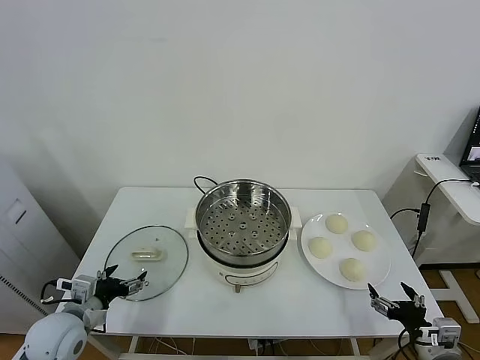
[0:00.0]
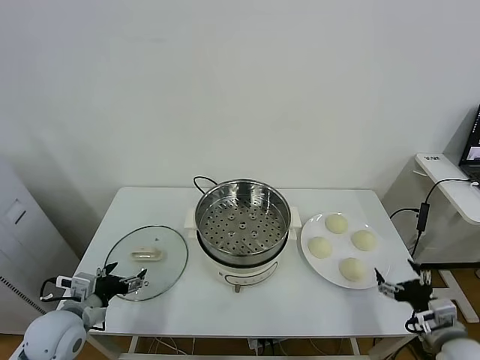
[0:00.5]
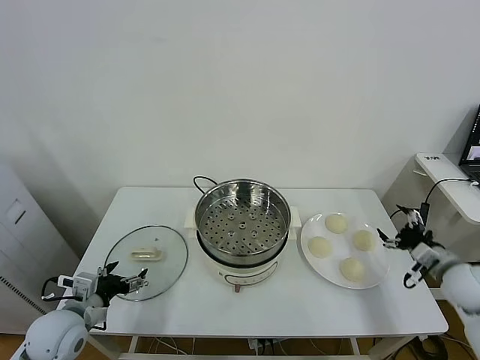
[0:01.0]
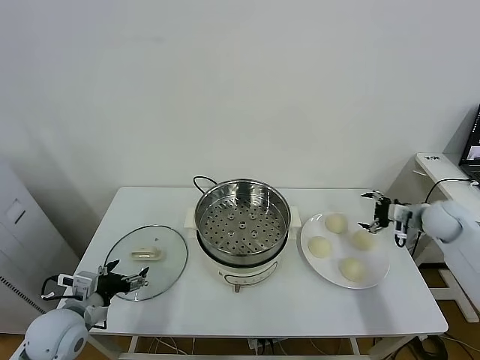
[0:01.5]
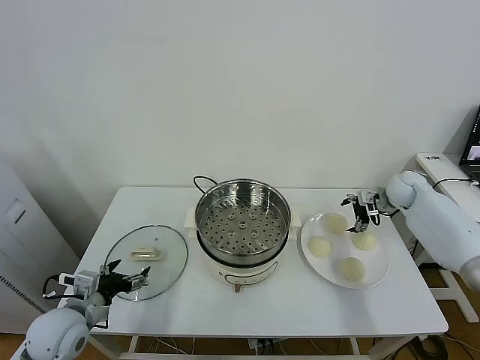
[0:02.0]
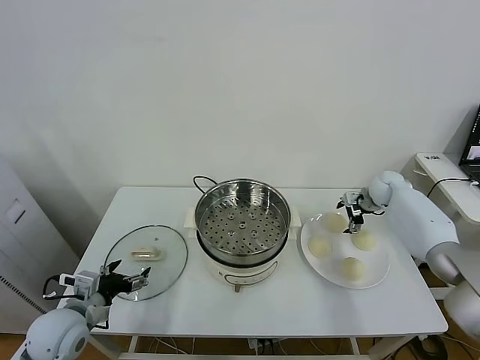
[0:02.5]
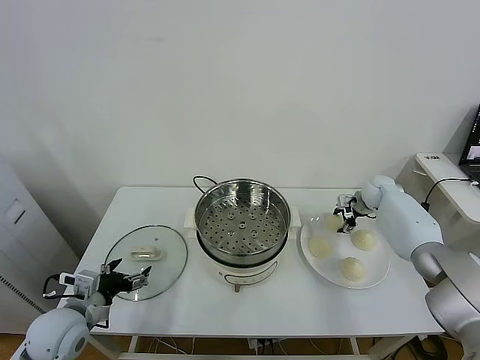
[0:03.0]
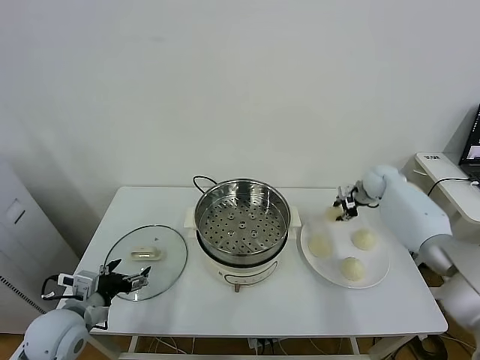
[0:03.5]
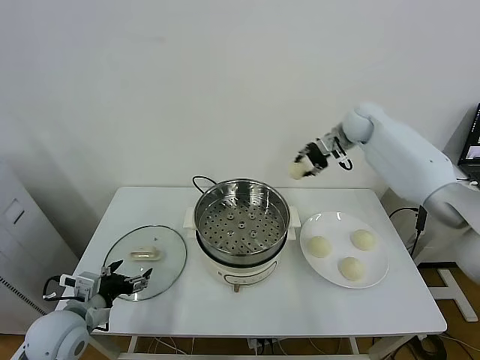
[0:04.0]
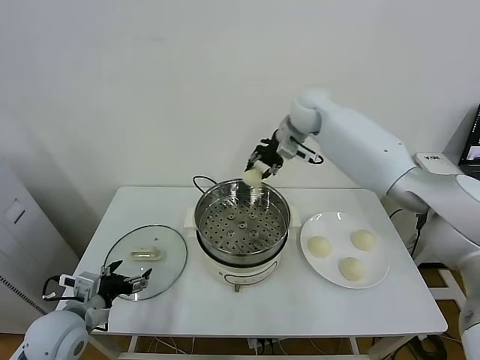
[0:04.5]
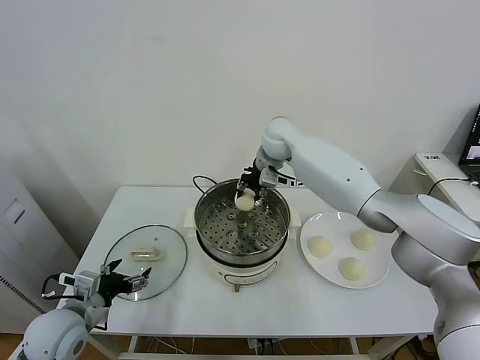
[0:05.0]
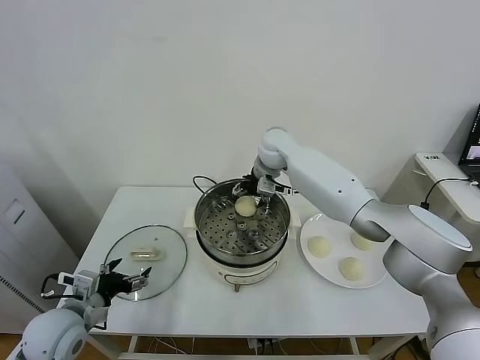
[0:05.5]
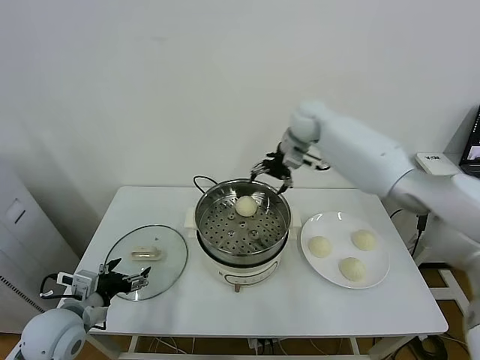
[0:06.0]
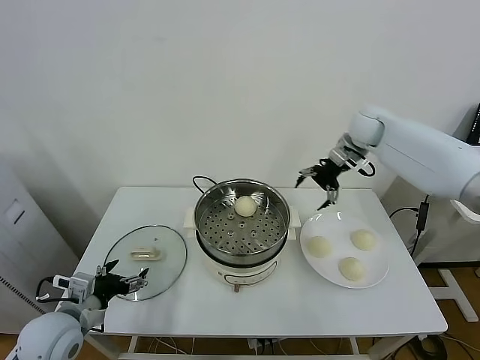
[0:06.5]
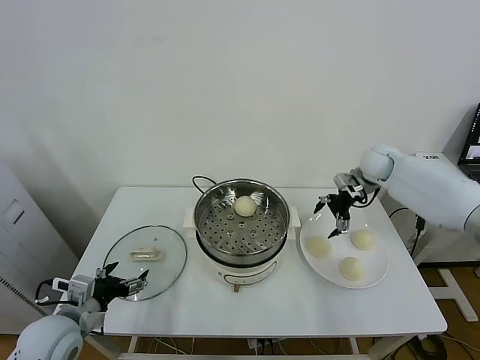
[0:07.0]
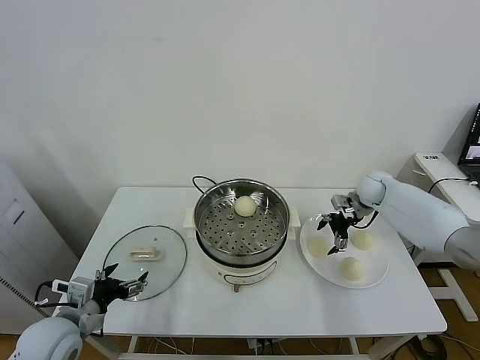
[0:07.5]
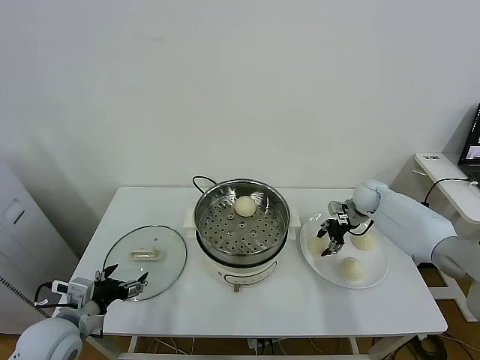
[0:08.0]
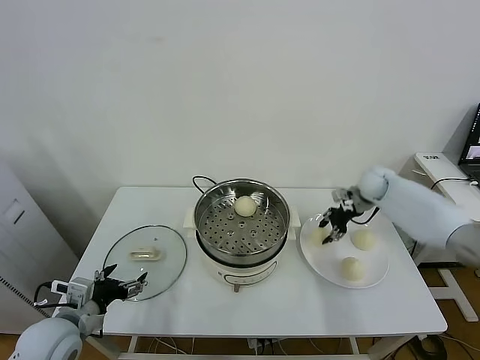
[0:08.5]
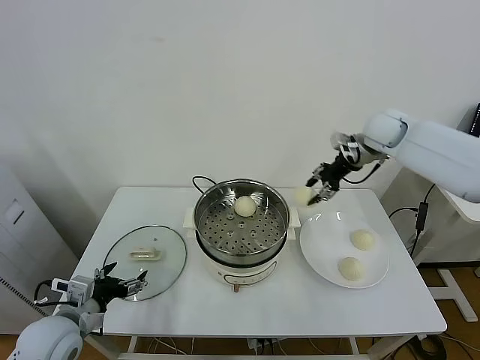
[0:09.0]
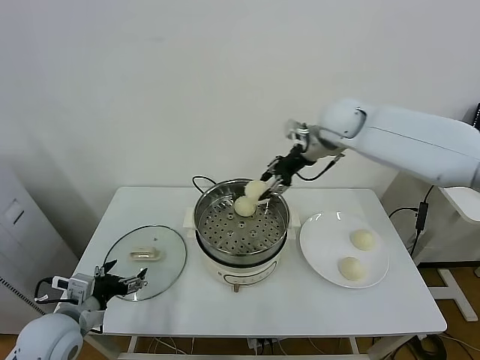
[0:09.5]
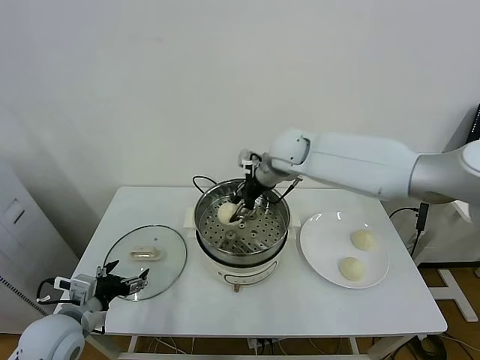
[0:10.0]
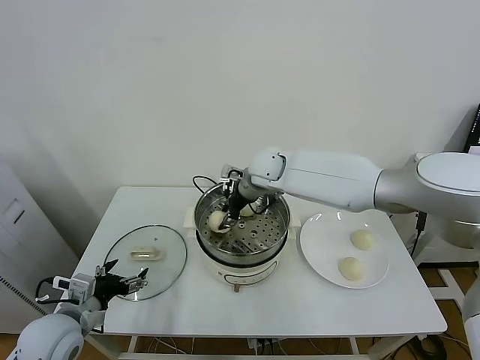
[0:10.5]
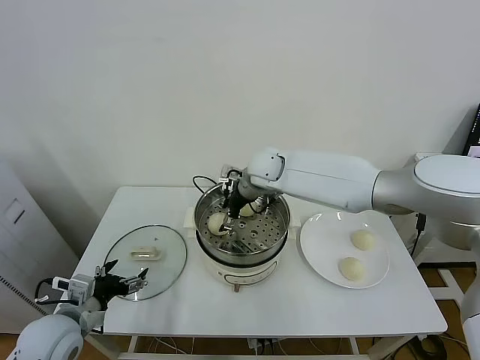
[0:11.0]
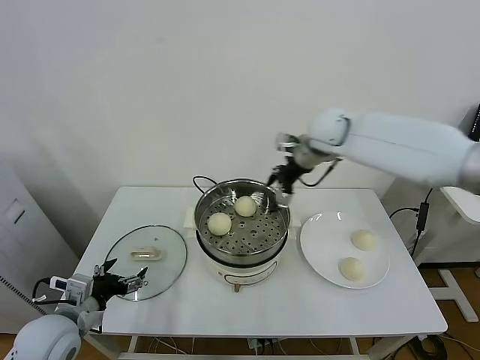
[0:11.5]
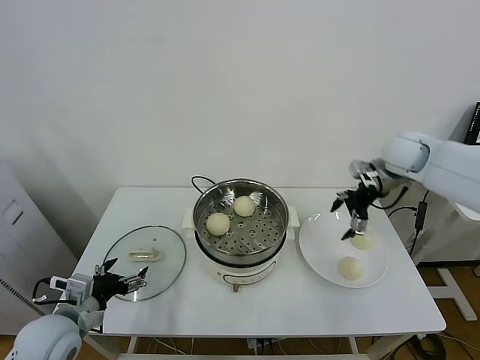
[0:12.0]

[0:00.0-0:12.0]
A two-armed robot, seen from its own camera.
Task of the whole recording: take steamed baozi put them in steamer.
Step, 0:00.0 to 0:03.0: Grasp the baozi in the plate with right gripper.
Step, 0:03.5 to 0:05.5: Place the baozi on the steamer with right gripper.
Step, 0:06.0 to 0:08.0: Grasp the baozi in the plate with right gripper.
Step, 0:08.5 to 0:11.0: Place the baozi on the steamer with right gripper.
0:02.0 to 0:04.0: The right gripper moves upward and to the left, about 25 cm, and closes its fingers.
0:04.0 to 0:06.0: The right gripper travels to the left by some 10 cm, and opens up.
0:06.0 to 0:08.0: The right gripper is displaced downward and to the right by some 30 cm, and closes its fingers.
0:08.0 to 0:10.0: The right gripper moves to the left and upward, some 30 cm.
0:10.0 to 0:12.0: The right gripper heads to the right, covering roughly 25 cm, and opens up.

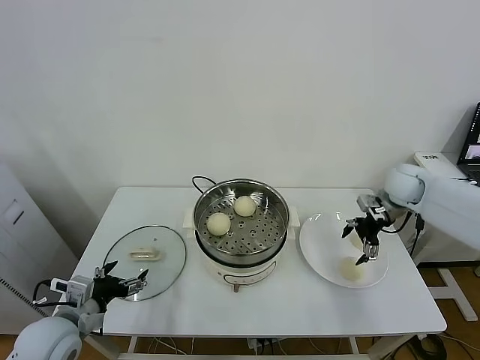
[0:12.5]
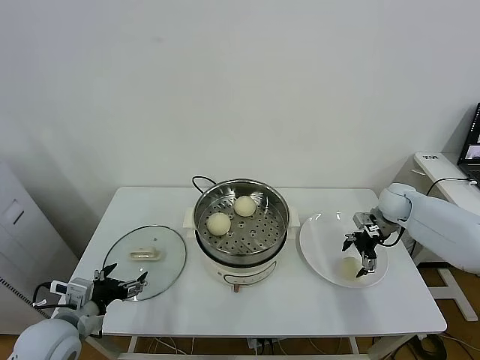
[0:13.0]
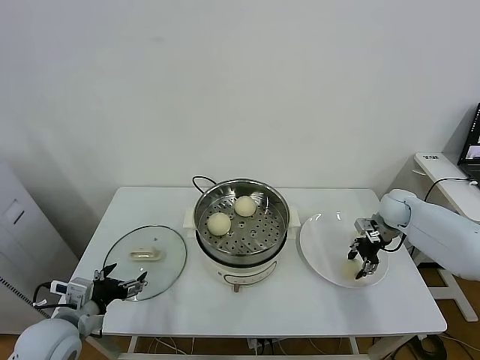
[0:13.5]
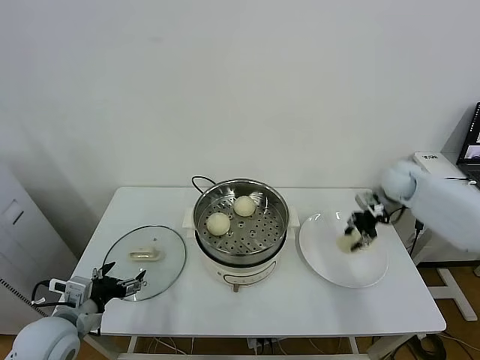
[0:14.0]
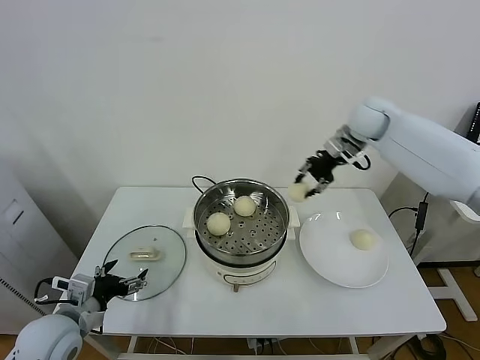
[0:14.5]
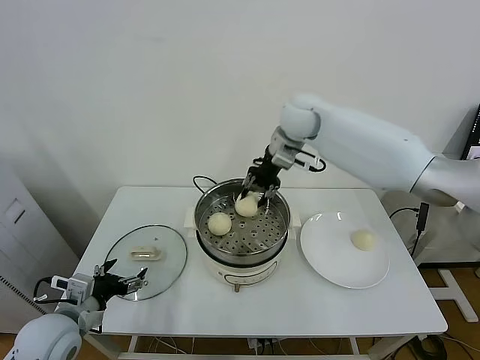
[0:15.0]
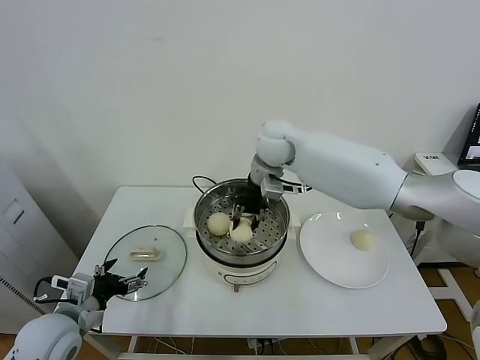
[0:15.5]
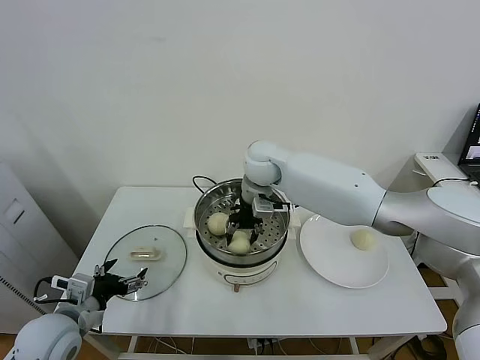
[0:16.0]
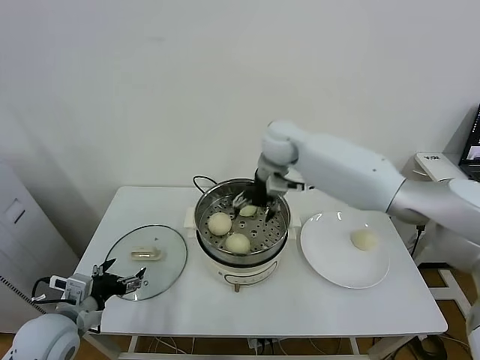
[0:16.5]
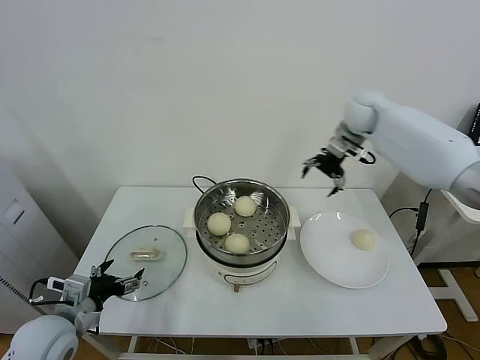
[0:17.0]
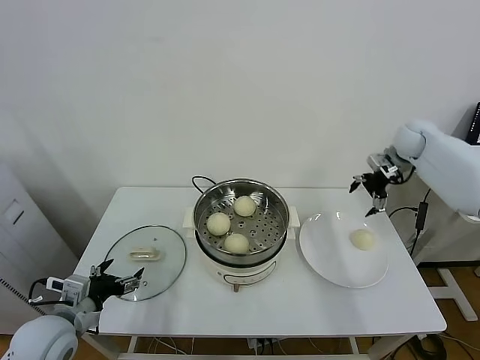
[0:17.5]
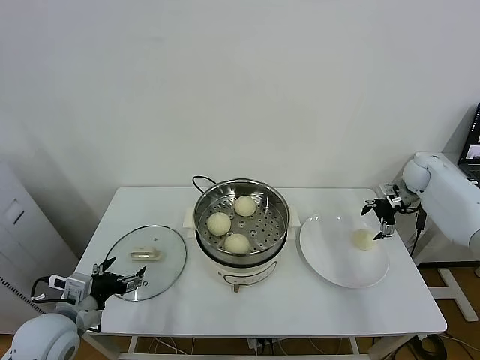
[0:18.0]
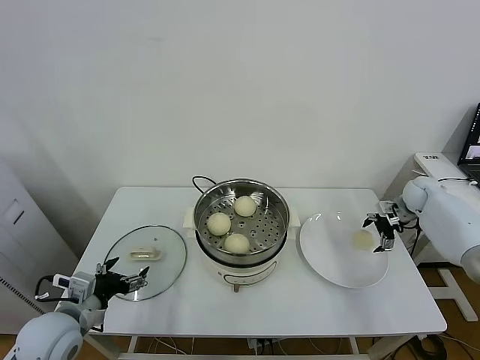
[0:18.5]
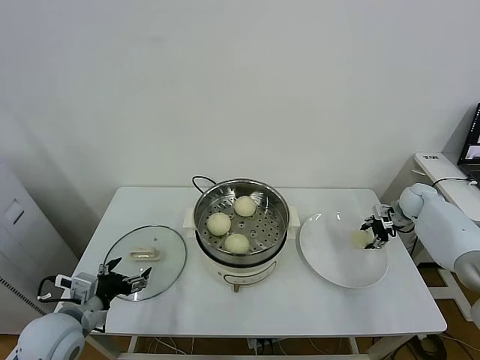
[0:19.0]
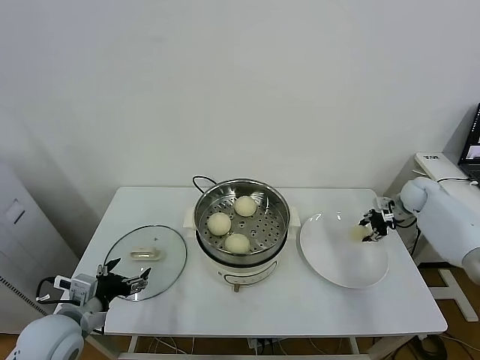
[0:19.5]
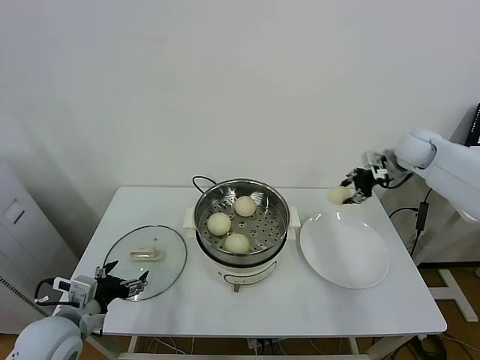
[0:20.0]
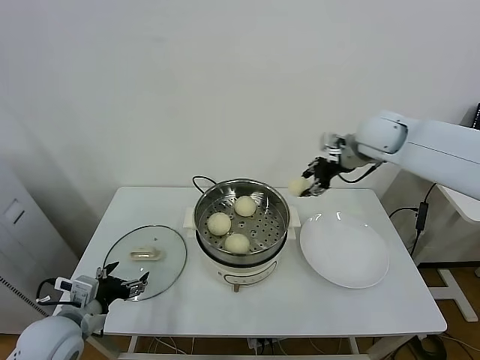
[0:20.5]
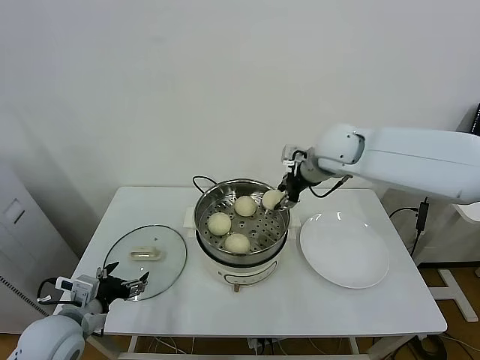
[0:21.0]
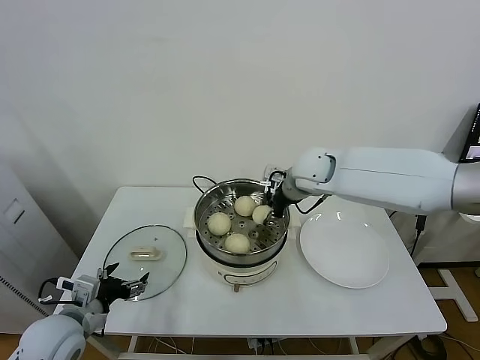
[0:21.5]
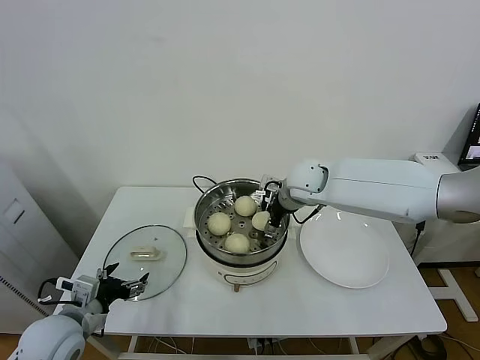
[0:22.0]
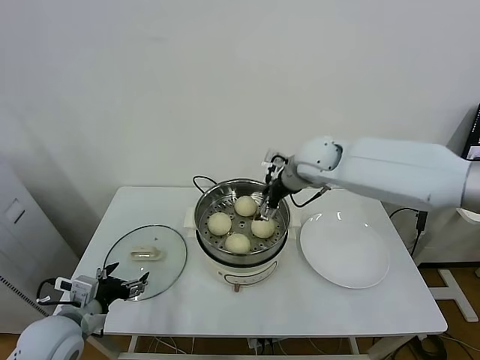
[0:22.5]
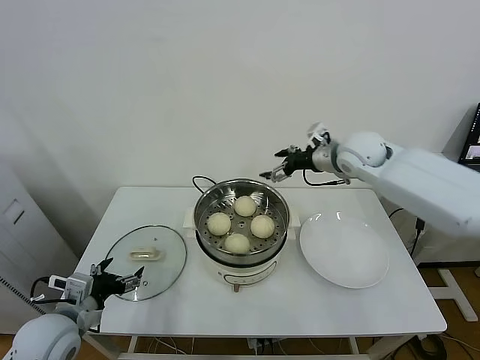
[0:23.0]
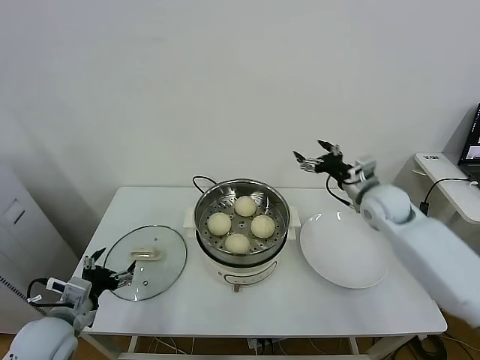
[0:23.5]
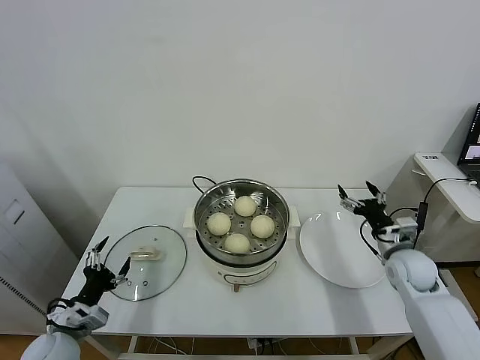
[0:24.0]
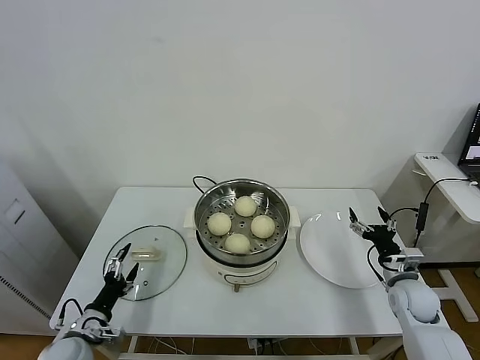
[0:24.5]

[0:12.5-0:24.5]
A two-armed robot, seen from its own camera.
Task of the whole recording: take steamed baozi put them in steamer.
Step, 0:14.0 to 0:16.0: Place the baozi on the steamer with right gripper.
Step, 0:16.5 to 0:18.5: Grasp the baozi in the plate with right gripper.
Step, 0:19.5 to 0:22.0: Place the baozi on the steamer with right gripper.
0:12.5 to 0:14.5: The right gripper goes about 20 cm upward, to the left and forward, and closes.
0:14.5 to 0:16.5: The right gripper shifts some 15 cm to the left, and opens up.
0:16.5 to 0:18.5: The right gripper goes some 40 cm to the right and downward.
0:18.5 to 0:20.5: The right gripper travels to the left and upward by some 30 cm, and closes.
0:20.5 to 0:22.5: The right gripper heads to the left and downward, covering approximately 15 cm, and opens up.
0:22.5 to 0:24.5: The left gripper travels downward by approximately 15 cm. Meanwhile the right gripper heads downward, to the right and backward, covering roughly 40 cm.

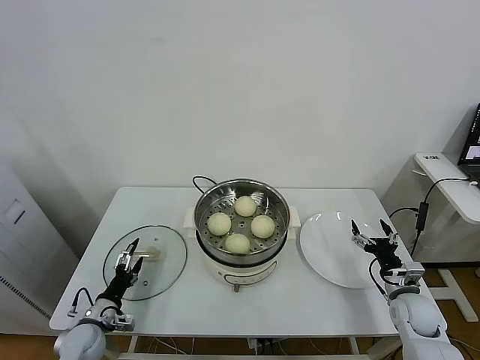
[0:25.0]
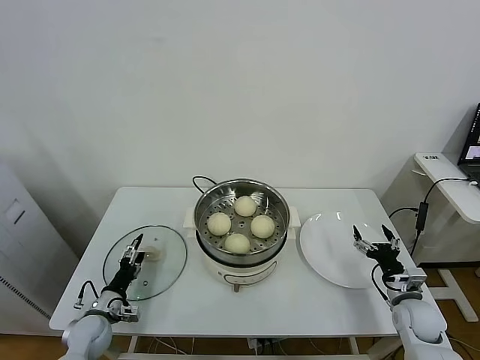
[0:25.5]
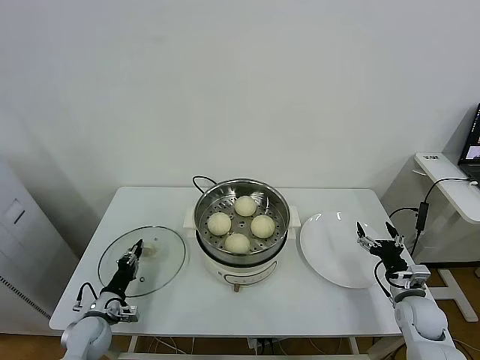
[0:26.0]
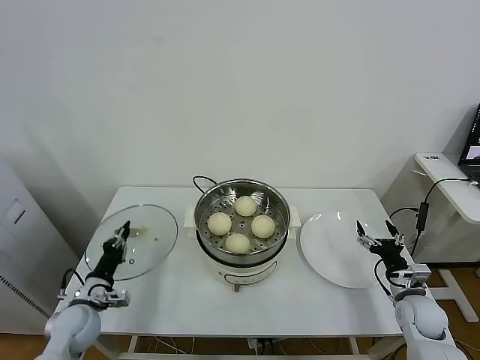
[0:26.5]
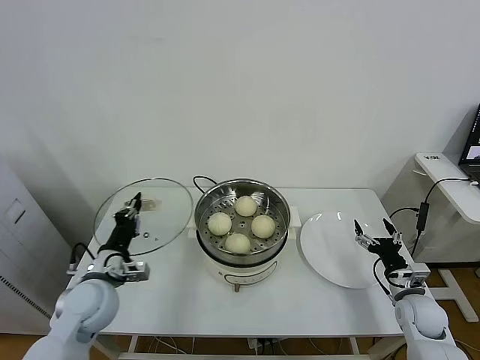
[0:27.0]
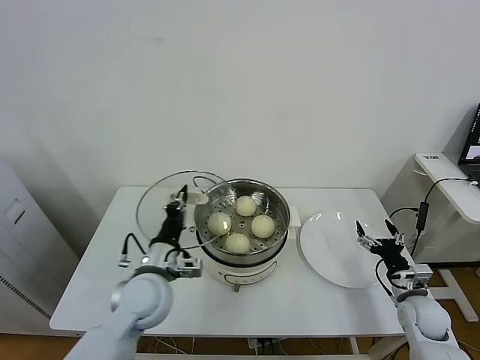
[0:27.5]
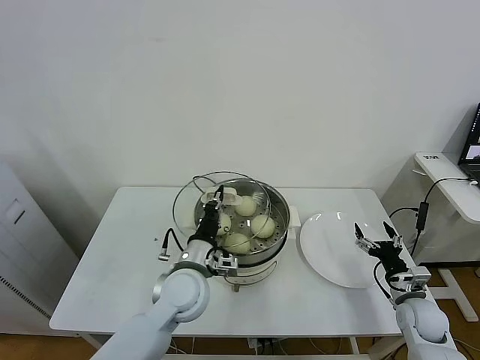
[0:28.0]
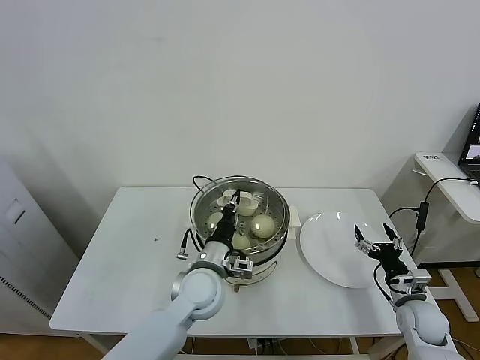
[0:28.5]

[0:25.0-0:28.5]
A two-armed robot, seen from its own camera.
Task of the whole recording: take steamed baozi put them in steamer.
0:25.0 to 0:27.0: The left gripper shifts about 20 cm upward and to the right, and closes its fingers.
0:27.0 to 0:28.5: The left gripper moves to the right, about 20 cm.
